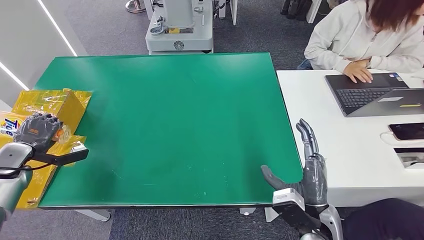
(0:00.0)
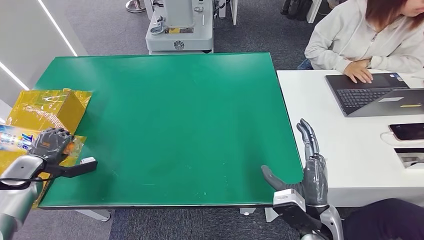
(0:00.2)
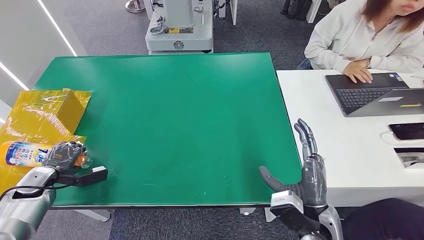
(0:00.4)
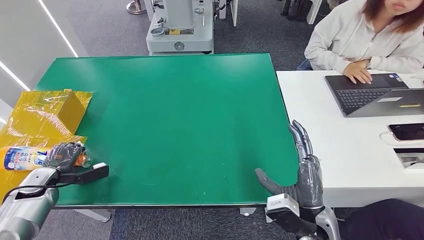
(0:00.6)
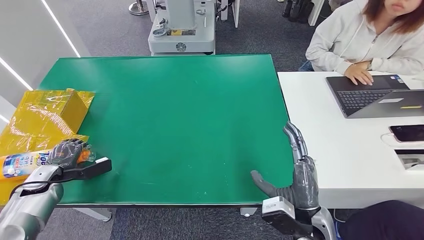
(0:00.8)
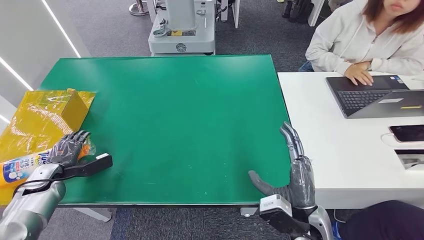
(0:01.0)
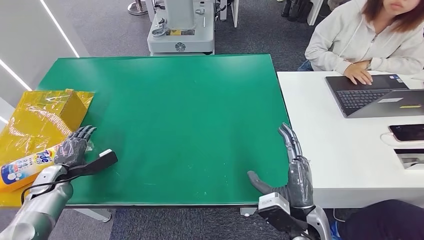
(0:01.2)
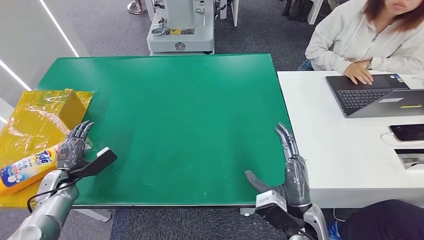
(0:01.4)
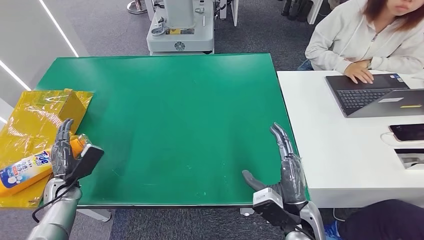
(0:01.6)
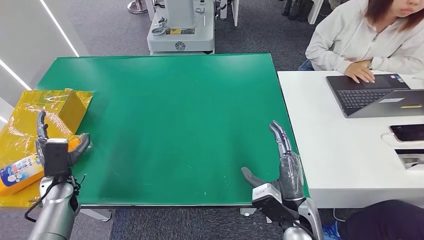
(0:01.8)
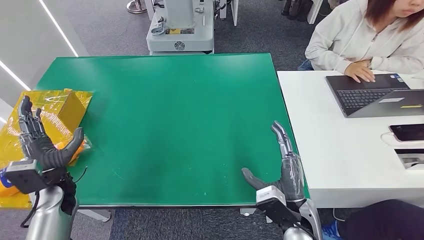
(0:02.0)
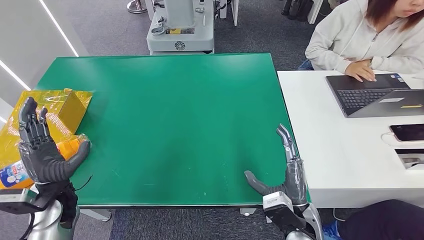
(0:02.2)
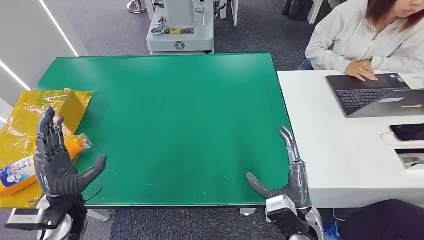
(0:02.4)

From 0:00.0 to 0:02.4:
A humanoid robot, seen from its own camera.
Step, from 0:00.0 to 0:02.2: Turn the bottle to the front side.
From 0:00.0 to 0:01.2: The left hand travels downward and to the right by some 10 cm.
From 0:01.2 to 0:02.4: The left hand moves to the right, upward and backward, roughly 20 cm.
